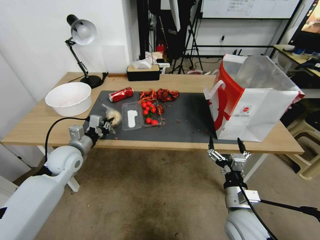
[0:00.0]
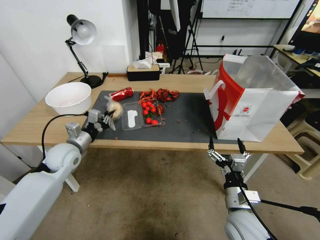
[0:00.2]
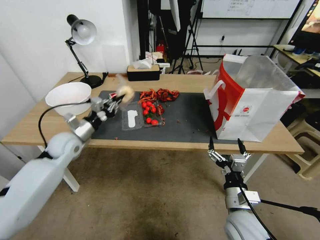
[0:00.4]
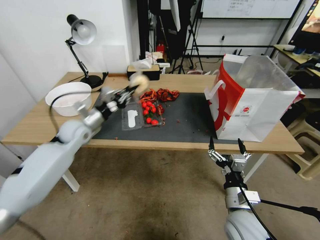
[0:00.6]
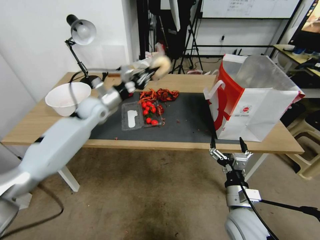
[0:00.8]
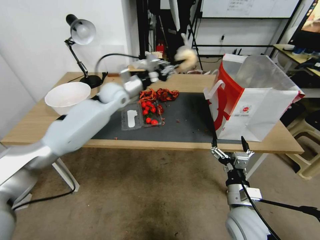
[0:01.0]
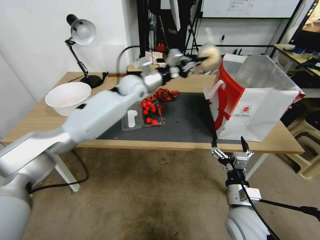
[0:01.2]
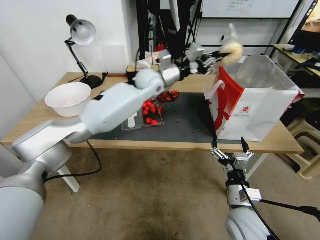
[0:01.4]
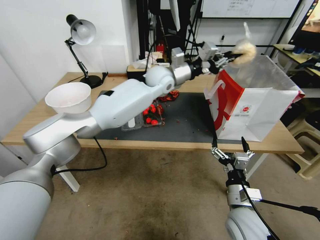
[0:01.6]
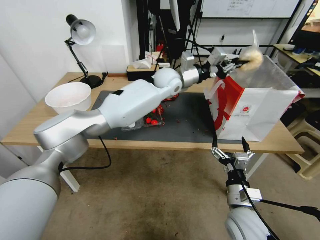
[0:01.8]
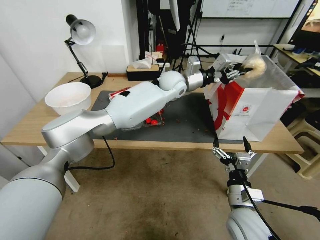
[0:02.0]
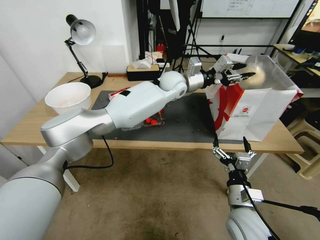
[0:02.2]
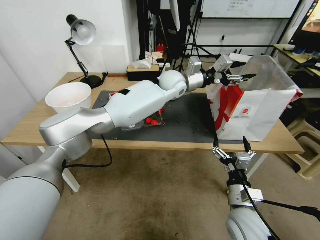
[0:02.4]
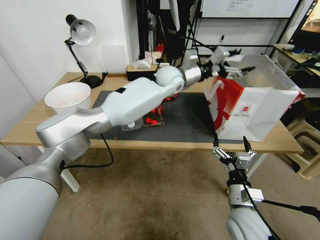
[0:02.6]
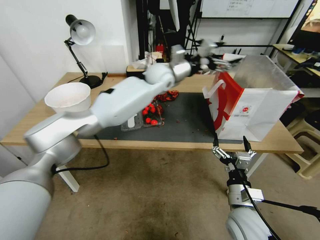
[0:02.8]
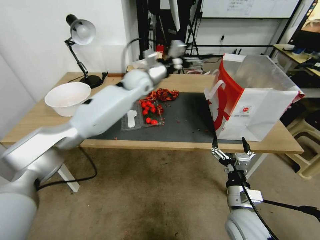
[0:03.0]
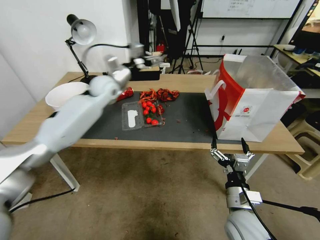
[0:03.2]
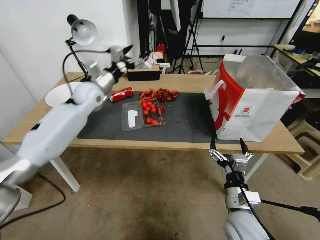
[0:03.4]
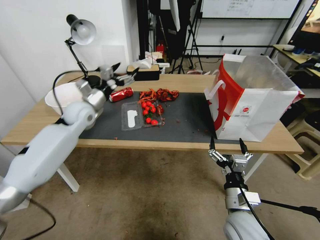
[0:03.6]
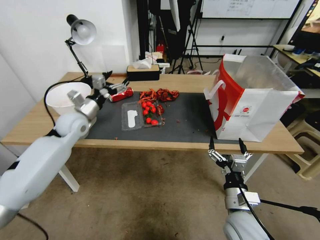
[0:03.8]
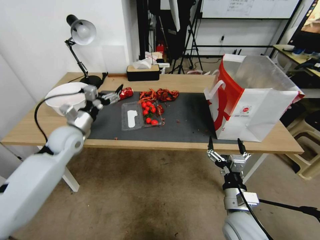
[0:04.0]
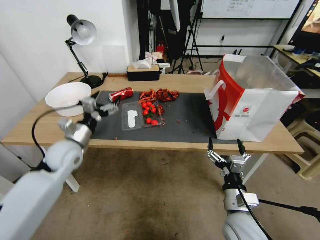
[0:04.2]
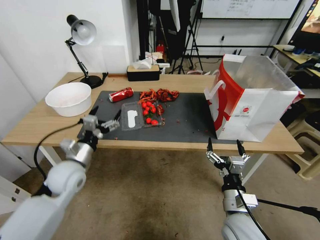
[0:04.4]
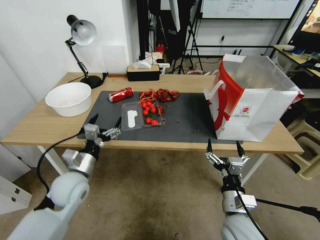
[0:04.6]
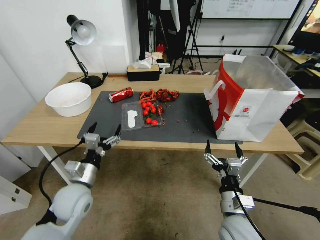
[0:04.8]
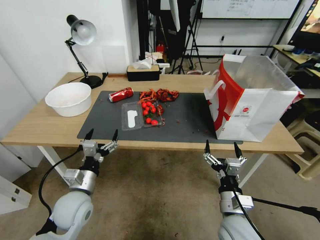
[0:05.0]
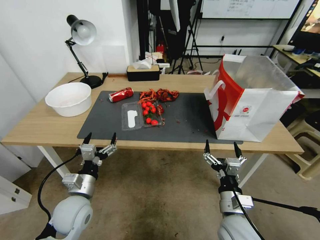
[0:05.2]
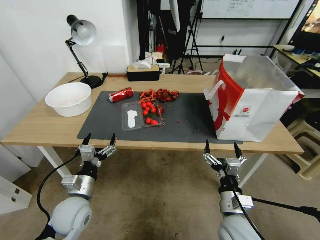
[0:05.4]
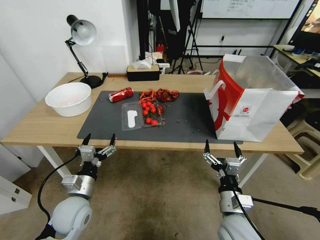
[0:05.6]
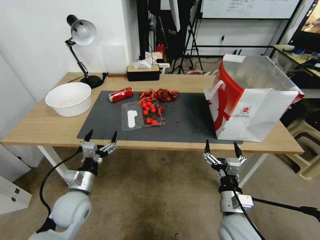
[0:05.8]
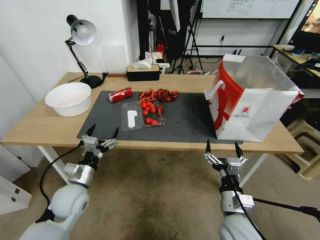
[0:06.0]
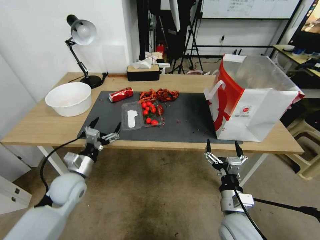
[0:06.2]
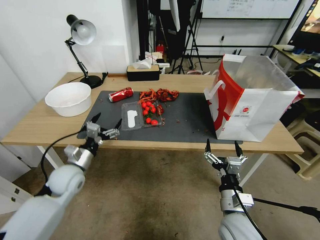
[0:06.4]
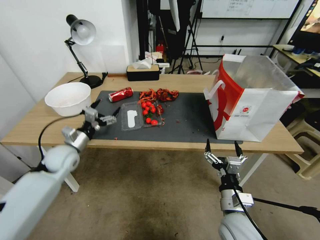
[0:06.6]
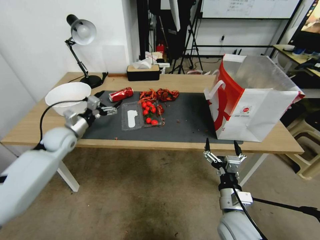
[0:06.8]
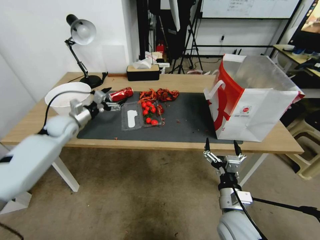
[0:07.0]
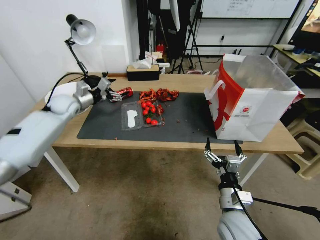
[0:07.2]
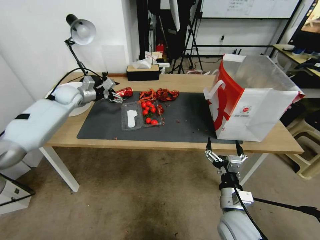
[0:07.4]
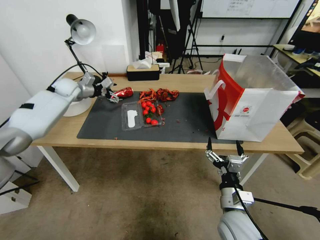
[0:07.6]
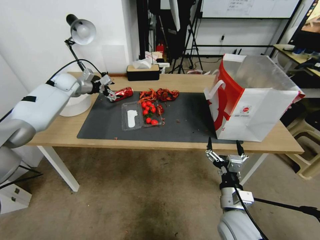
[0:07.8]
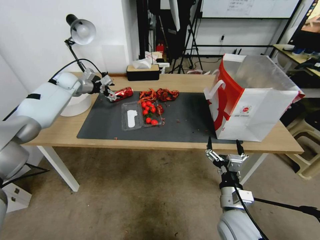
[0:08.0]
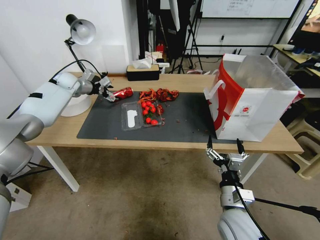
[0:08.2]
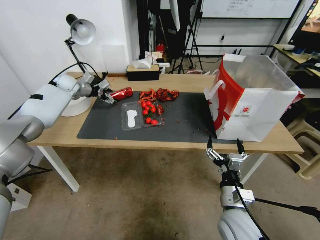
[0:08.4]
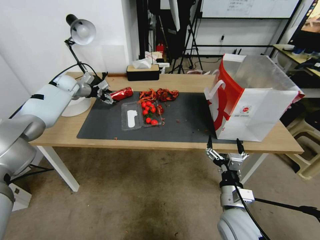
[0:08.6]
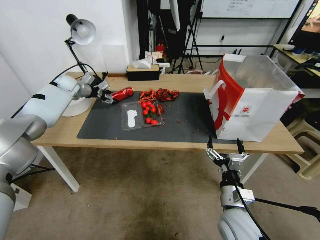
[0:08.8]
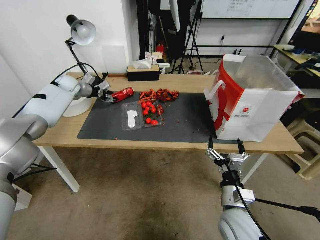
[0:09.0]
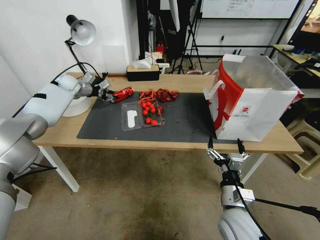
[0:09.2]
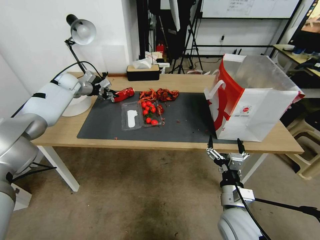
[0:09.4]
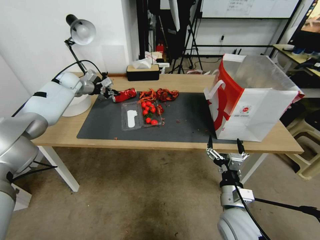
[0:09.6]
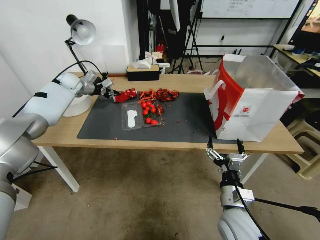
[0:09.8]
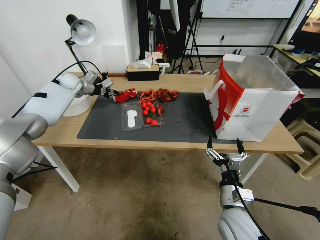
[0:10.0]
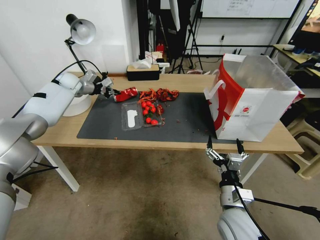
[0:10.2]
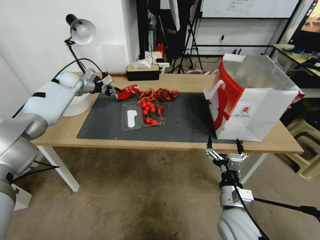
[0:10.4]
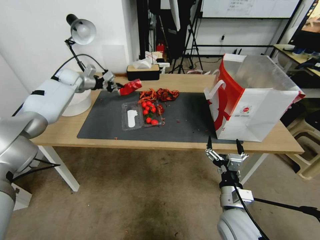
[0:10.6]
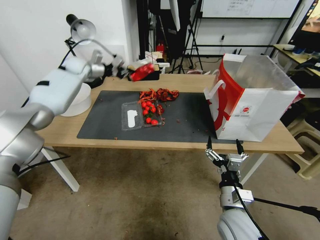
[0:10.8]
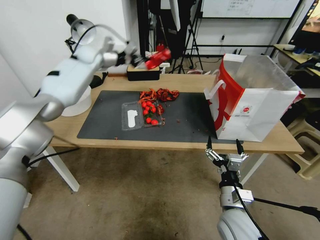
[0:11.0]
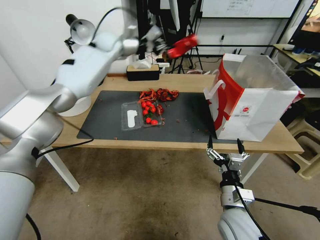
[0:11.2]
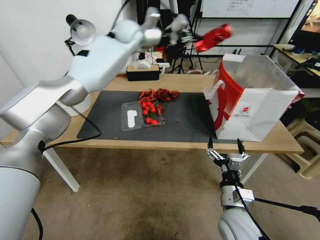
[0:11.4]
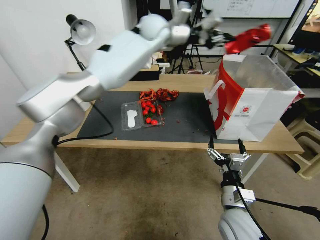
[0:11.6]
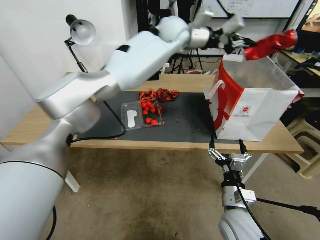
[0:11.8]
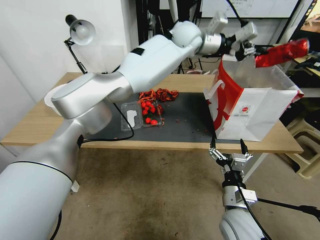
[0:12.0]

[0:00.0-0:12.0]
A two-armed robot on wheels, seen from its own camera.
0:00.0 to 0:01.6: The left gripper goes some 15 cm forward and upward.
0:01.6 to 0:03.0: The left gripper is displaced to the right by roughly 30 cm, and opens its fingers.
0:03.0 to 0:04.4: The left gripper goes roughly 40 cm to the left, backward and downward.
0:04.4 to 0:06.0: The left gripper travels downward by approximately 5 cm.
0:06.0 to 0:07.6: The left gripper heads forward and upward, covering about 40 cm.
0:07.6 to 0:09.0: The left gripper closes its fingers.
0:09.0 to 0:10.4: The left gripper closes up.
0:10.4 to 0:12.0: The left gripper is displaced to the right by about 50 cm.

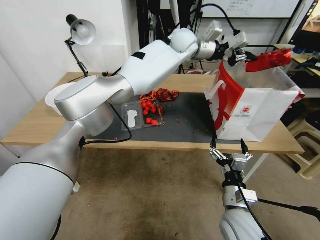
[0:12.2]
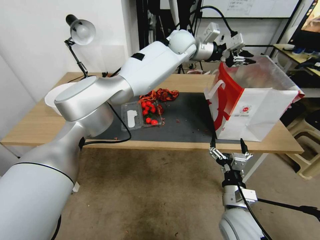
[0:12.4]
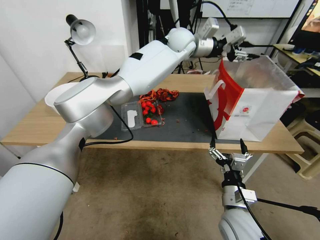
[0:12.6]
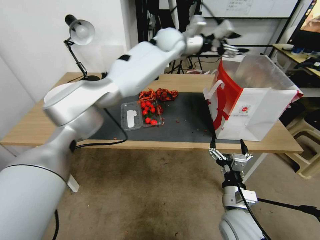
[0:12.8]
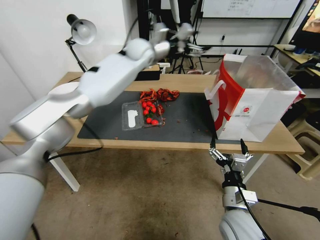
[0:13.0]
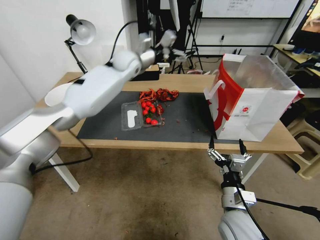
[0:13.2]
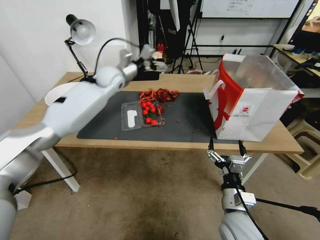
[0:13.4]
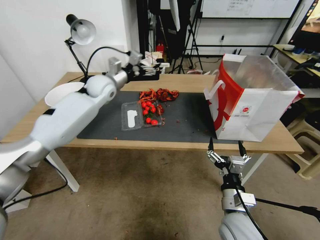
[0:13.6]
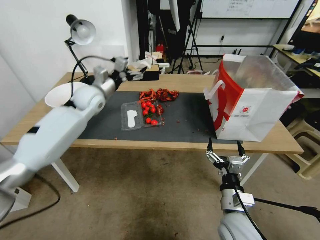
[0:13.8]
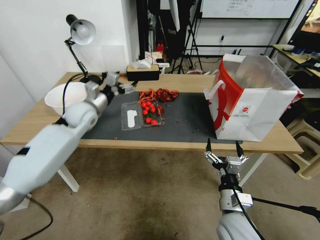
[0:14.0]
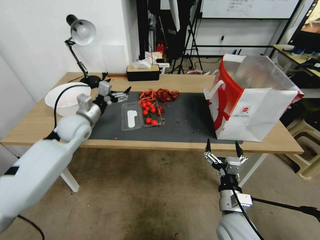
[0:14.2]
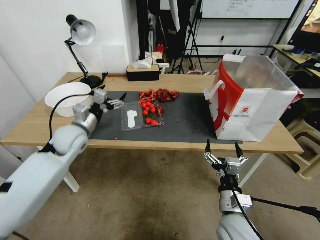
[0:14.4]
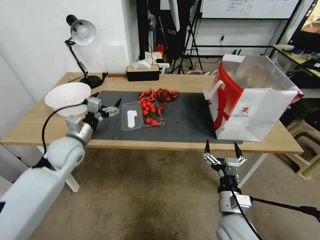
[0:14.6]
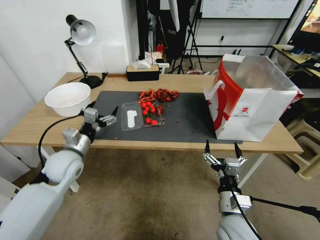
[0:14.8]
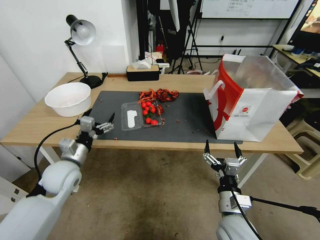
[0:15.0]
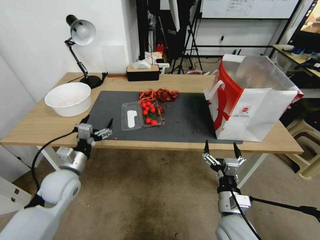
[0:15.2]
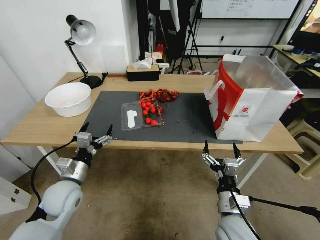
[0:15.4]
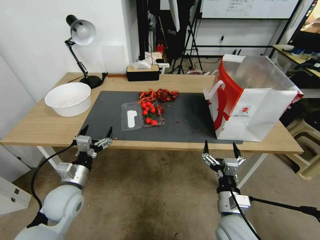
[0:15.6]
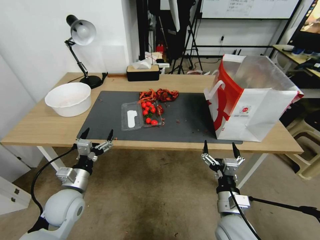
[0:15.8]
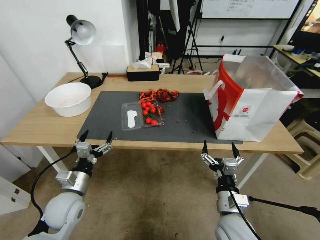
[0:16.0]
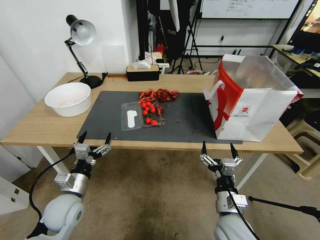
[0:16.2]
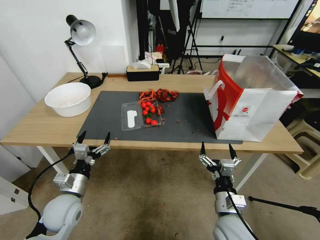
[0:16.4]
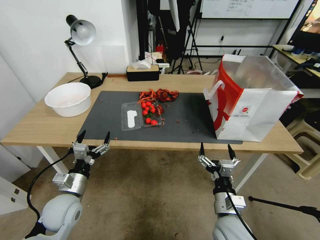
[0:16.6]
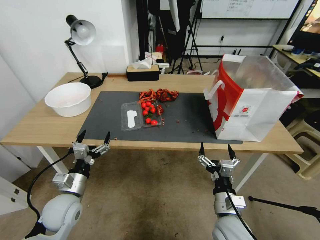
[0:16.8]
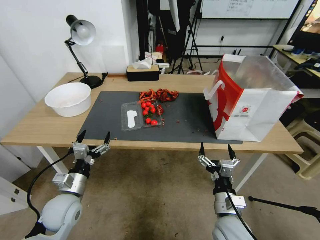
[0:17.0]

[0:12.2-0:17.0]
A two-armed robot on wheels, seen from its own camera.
0:12.2 to 0:13.8: The left gripper travels to the left and downward by some 30 cm, and opens.
0:13.8 to 0:15.4: The left gripper is displaced backward and downward by approximately 35 cm.
0:15.4 to 0:17.0: The grippers move only a little.
